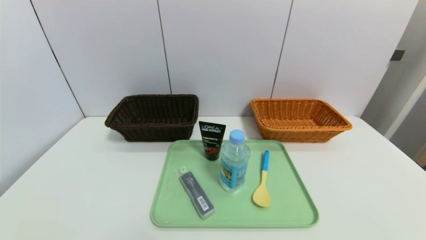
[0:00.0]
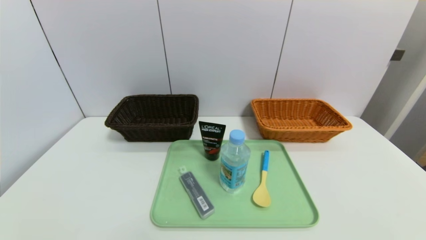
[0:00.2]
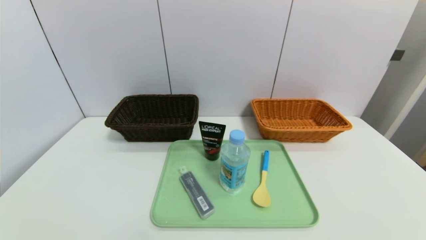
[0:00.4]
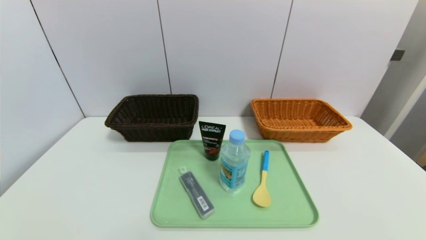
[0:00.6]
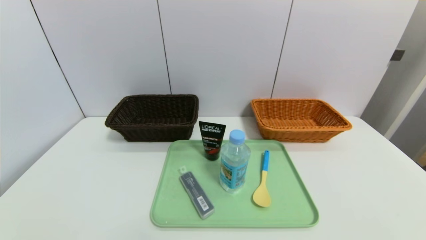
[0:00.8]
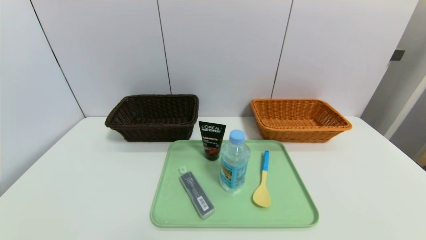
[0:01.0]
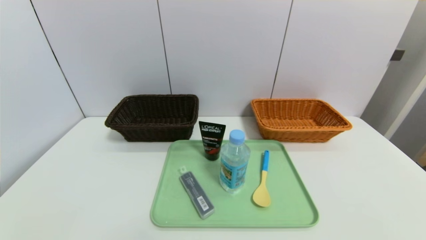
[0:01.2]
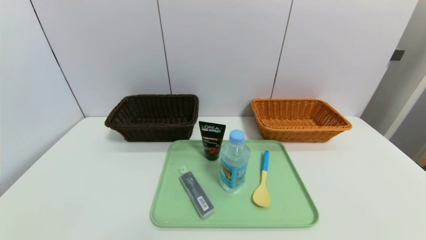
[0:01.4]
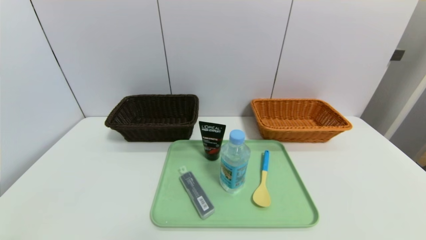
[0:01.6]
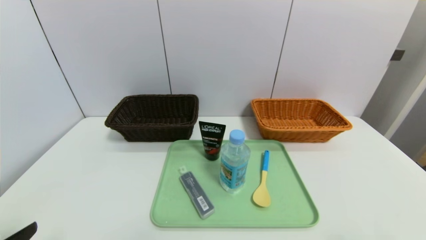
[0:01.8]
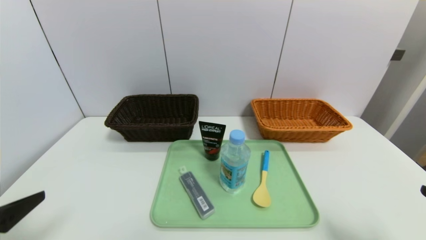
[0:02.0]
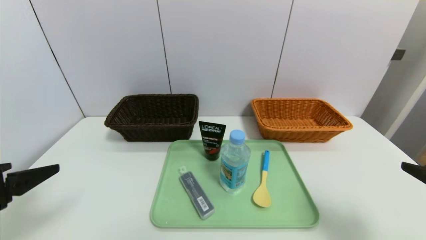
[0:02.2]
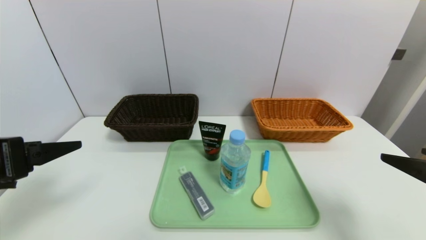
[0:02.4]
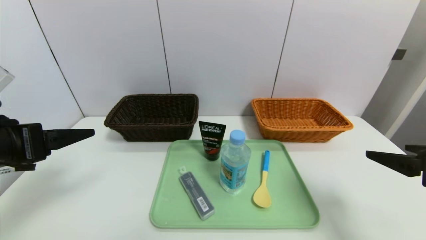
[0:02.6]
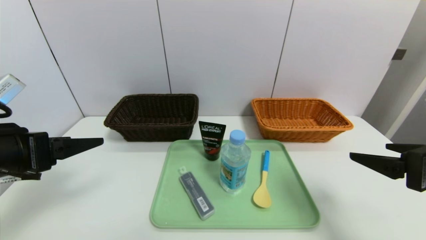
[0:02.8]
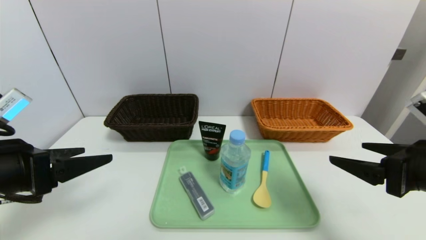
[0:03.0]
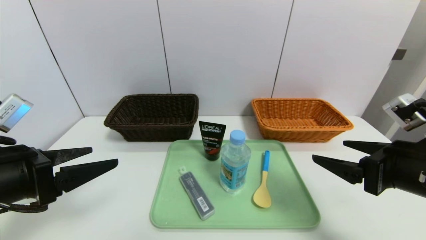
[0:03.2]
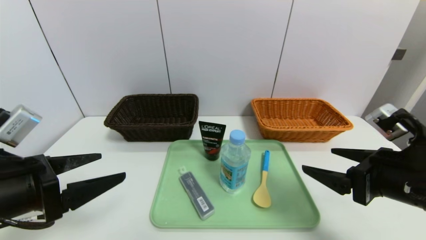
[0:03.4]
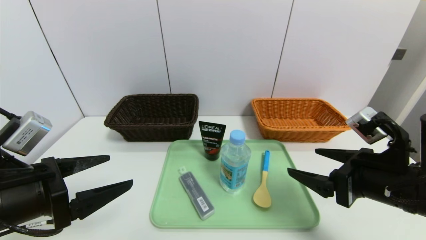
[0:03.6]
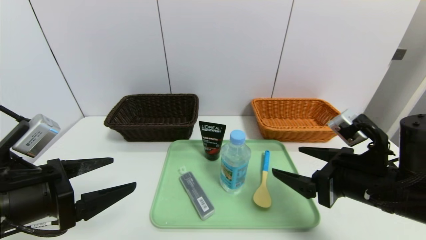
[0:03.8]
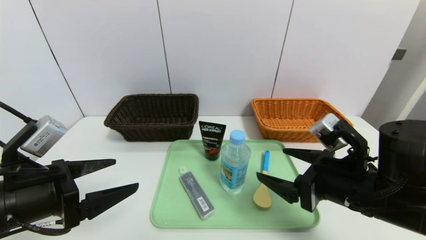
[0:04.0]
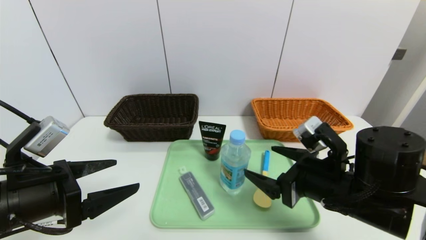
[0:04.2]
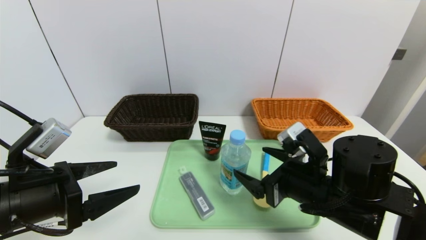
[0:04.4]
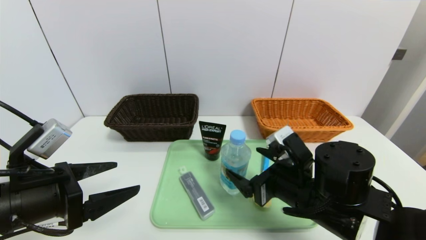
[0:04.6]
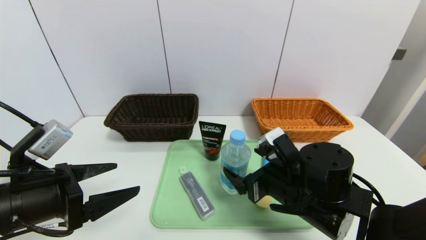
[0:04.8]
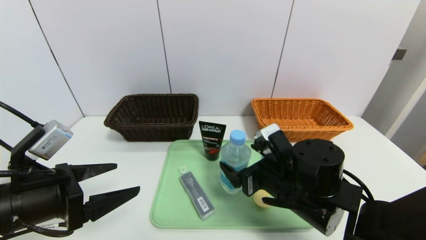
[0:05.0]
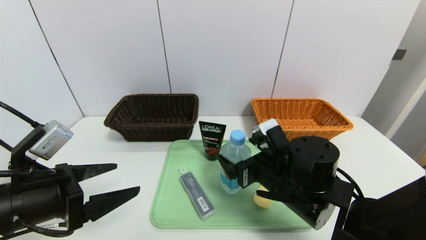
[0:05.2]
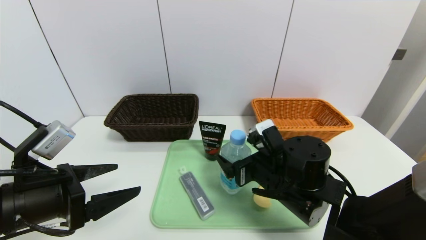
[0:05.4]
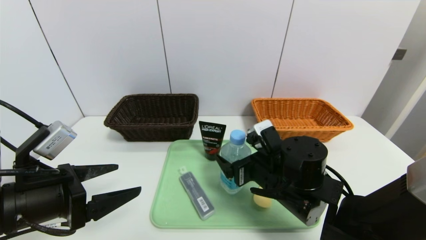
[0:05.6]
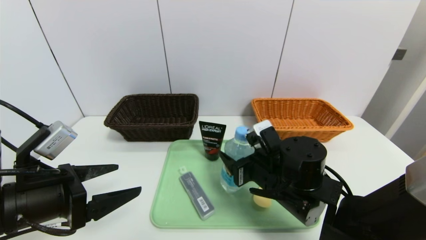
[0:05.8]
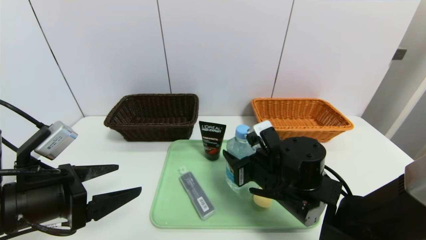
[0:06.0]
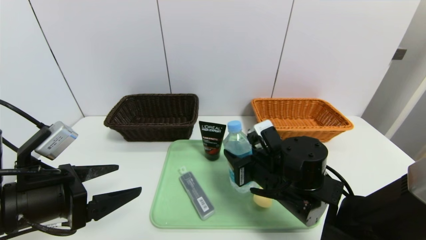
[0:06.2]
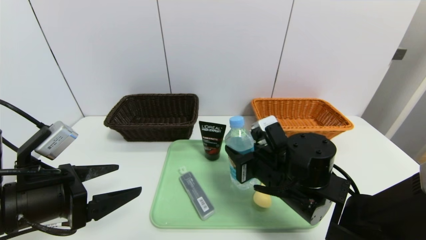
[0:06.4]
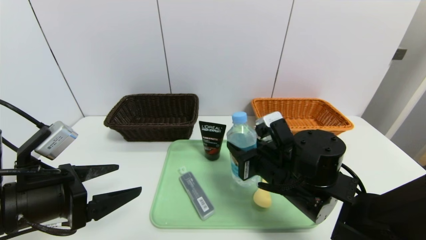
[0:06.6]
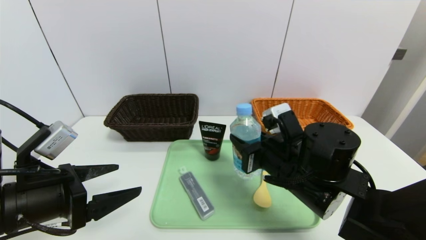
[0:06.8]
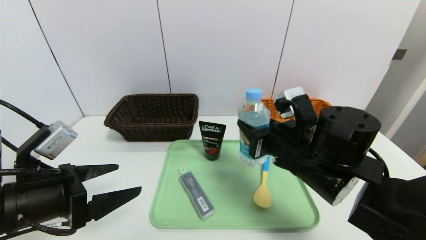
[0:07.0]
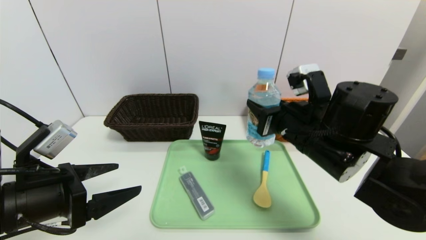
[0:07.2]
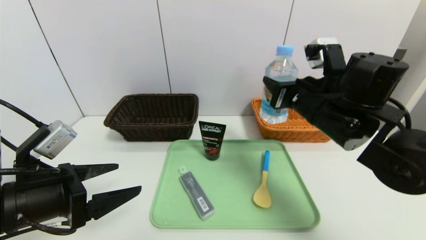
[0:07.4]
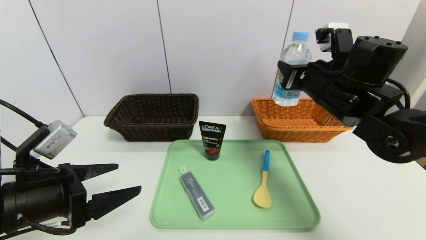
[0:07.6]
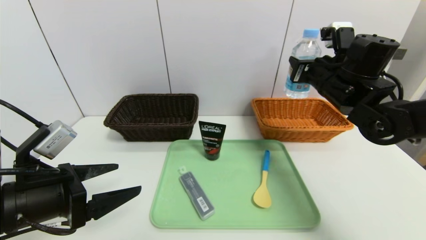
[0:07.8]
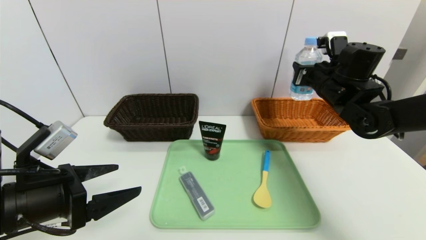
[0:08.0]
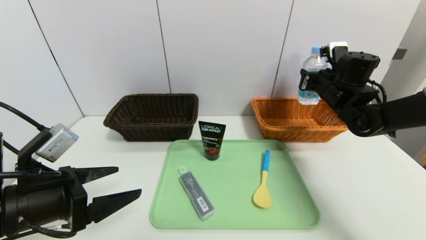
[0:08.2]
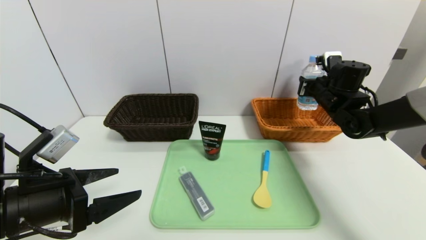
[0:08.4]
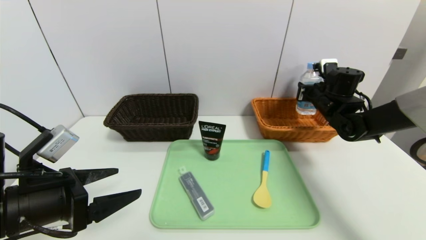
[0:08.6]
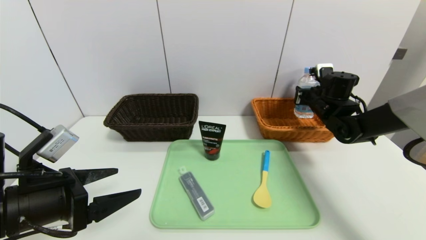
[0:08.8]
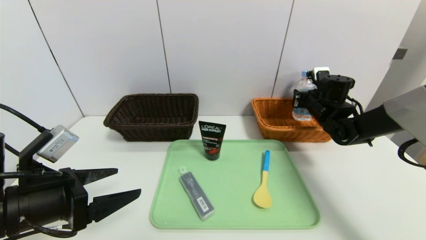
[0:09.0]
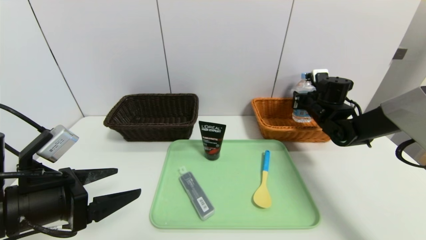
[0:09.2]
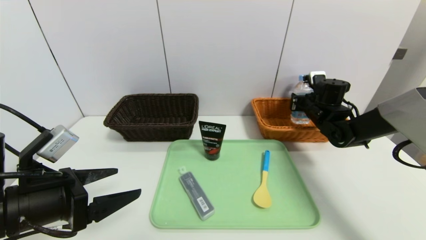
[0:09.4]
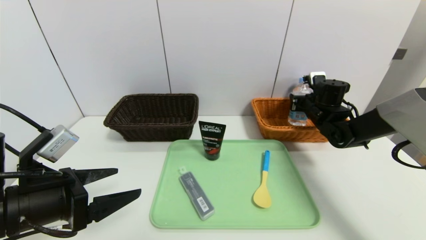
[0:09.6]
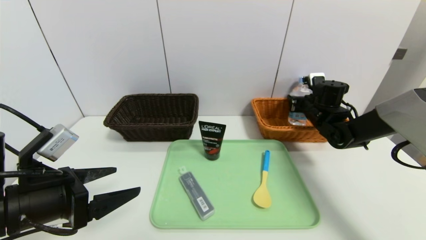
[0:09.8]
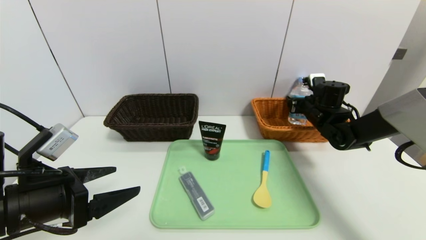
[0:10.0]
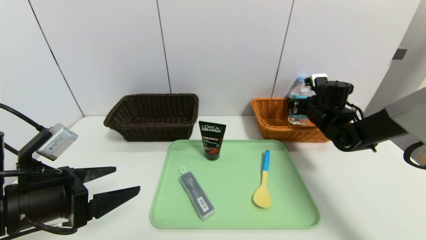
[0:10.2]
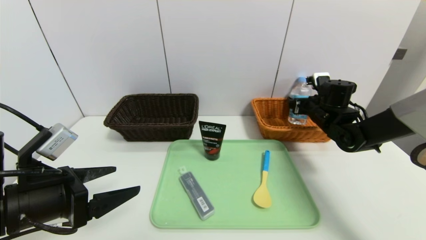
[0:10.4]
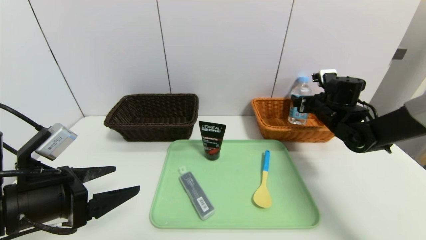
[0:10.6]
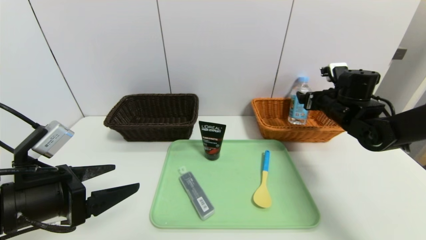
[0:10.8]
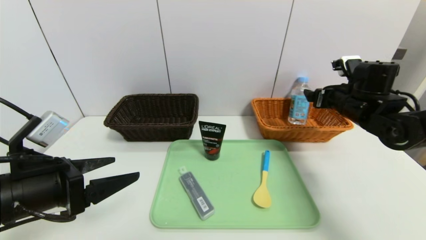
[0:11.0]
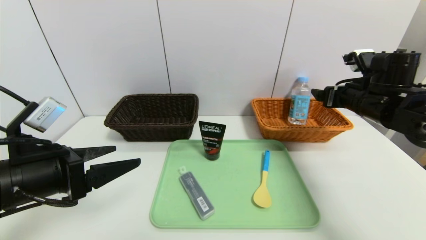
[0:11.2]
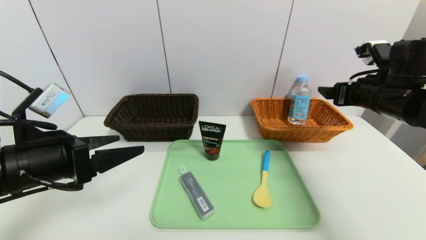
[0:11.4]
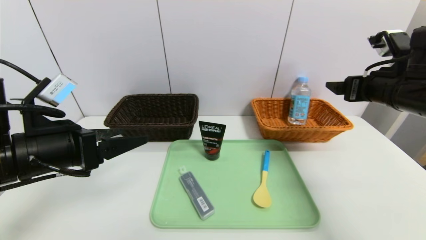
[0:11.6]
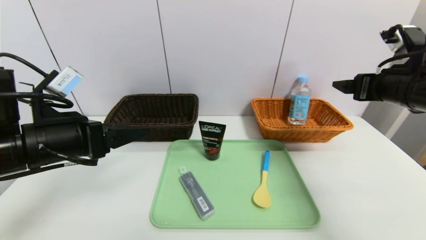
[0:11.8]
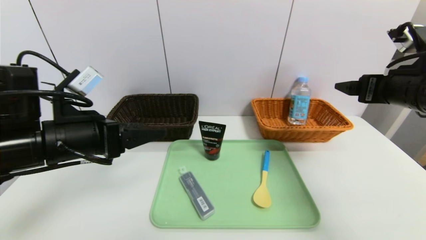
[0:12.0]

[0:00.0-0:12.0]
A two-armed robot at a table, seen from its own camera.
Task of the whole recording: place the food in the right basket with the right gripper, and place the non food items in the left basket with the left gripper.
Step, 0:00.0 to 0:10.0: Grasp the soda water and put it in the right basket.
0:01.6 to 0:03.0: The grippers both shift forward and upward by roughly 15 cm.
0:03.0 to 0:04.4: The right gripper moves to the left and downward, roughly 15 cm.
0:04.4 to 0:06.0: The right gripper ends up approximately 5 cm from where it was, and closes its fingers.
0:06.0 to 0:07.6: The right gripper moves upward, to the right and forward, some 20 cm.
0:07.6 to 0:09.0: The right gripper heads forward, downward and to the right, covering about 20 cm.
0:09.0 to 0:10.4: The right gripper opens up.
0:10.4 to 0:12.0: The right gripper moves backward and upward, about 20 cm, while the left gripper moves forward and upward, about 10 cm.

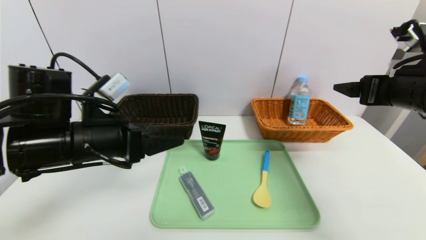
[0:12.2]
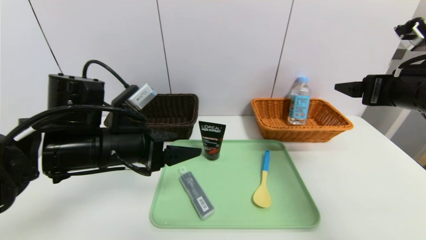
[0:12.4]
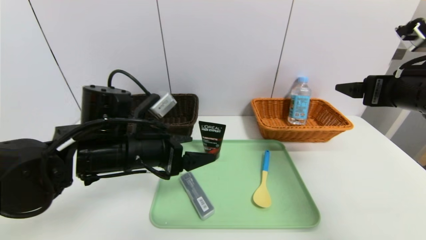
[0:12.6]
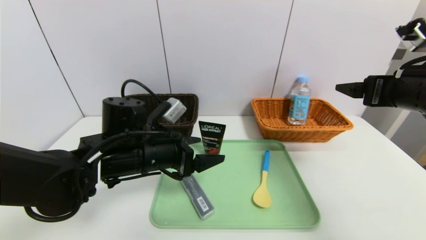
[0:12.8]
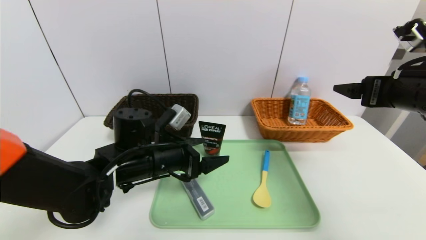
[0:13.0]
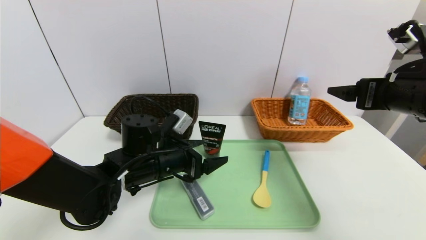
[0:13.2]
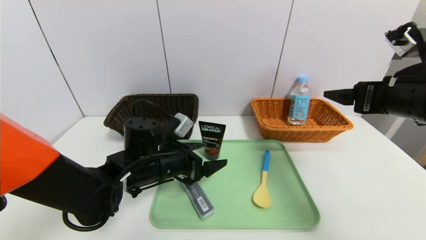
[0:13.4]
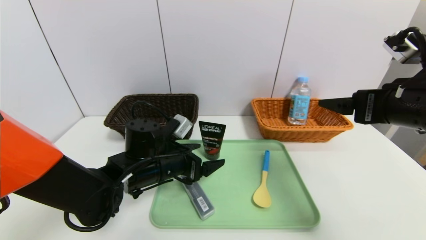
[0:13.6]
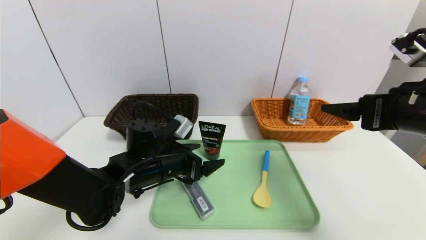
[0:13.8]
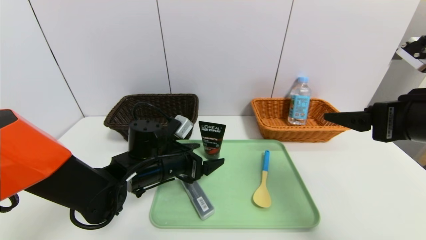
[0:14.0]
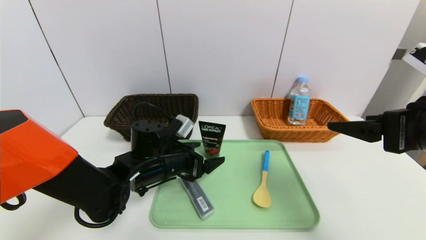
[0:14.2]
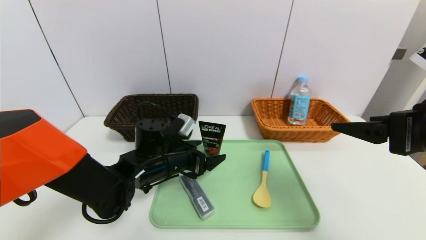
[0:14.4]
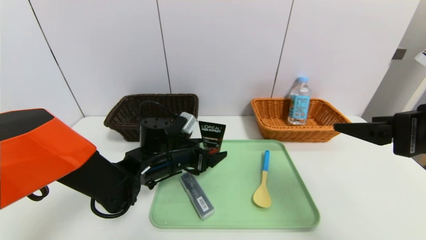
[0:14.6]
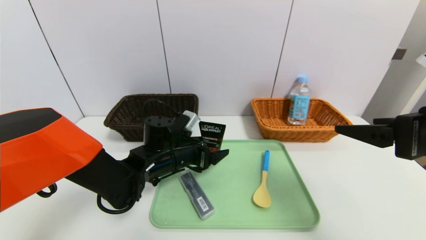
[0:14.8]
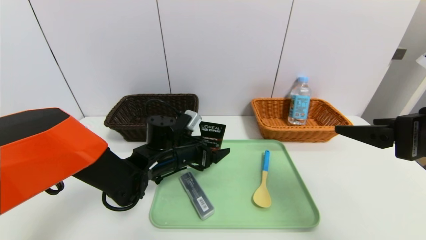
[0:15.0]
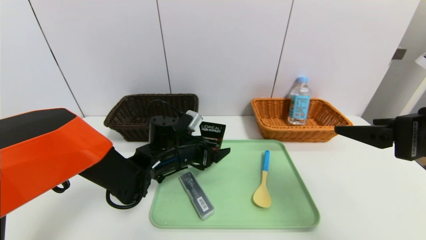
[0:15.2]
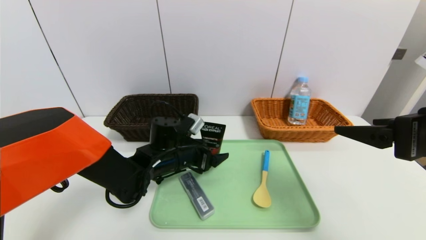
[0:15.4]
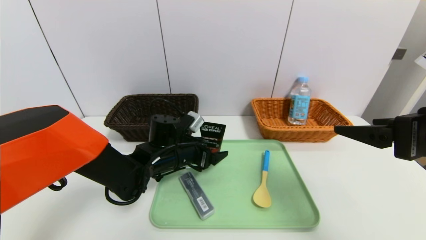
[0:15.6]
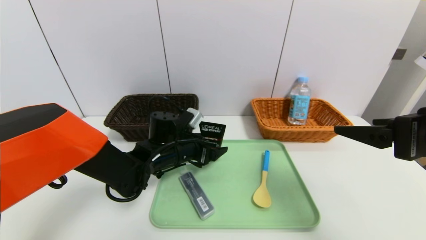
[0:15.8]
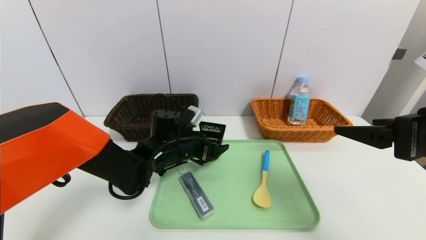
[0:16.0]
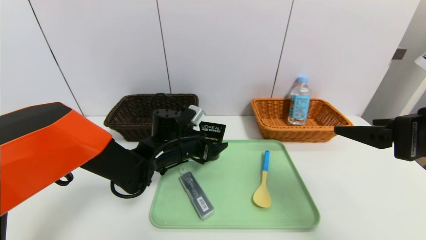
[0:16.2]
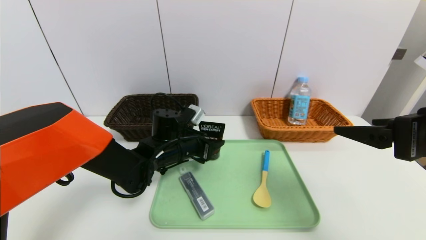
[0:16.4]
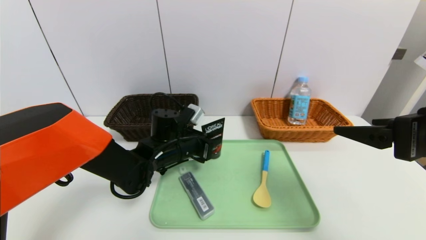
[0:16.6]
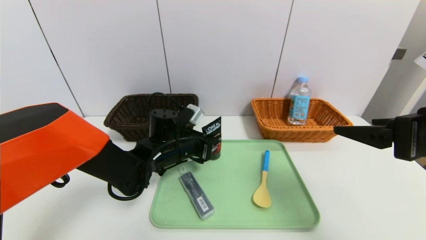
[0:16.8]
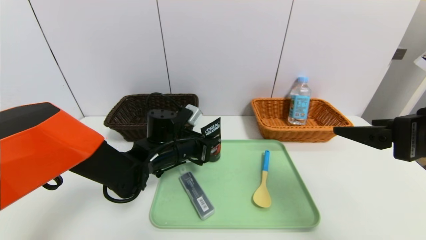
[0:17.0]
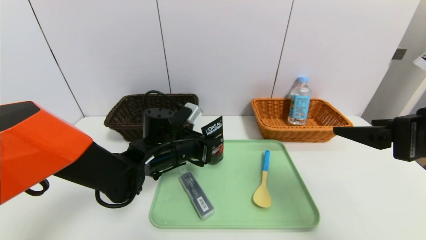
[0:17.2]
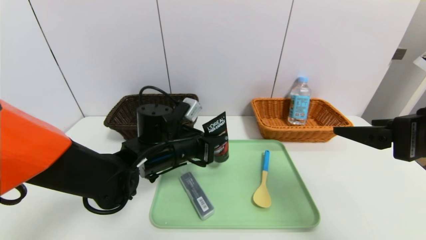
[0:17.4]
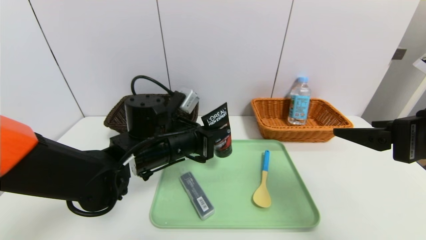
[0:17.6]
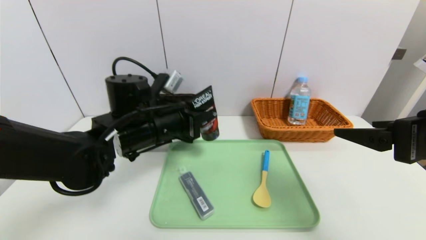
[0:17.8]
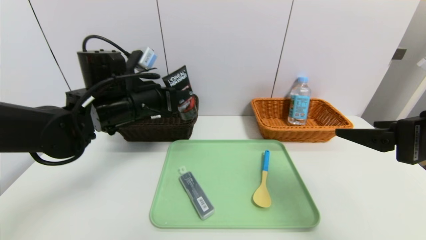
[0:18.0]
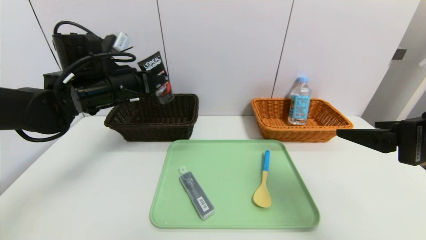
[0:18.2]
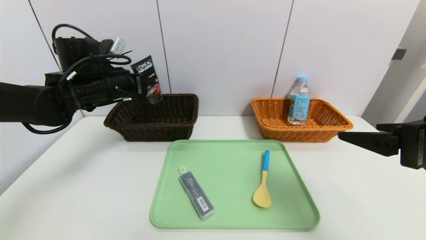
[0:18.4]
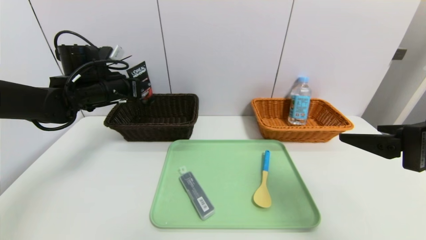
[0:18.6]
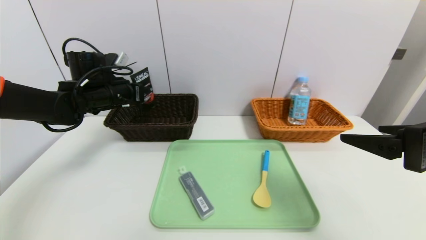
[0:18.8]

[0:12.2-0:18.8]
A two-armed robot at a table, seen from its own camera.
Task of the whole recording: place the food in the right basket with the right gripper, and place the non food items in the left basket with the left gripper.
0:12.2 to 0:13.8: The right gripper shifts by about 5 cm, while the left gripper is displaced downward, to the right and forward by roughly 15 cm.
0:13.8 to 0:15.4: The left gripper ends up approximately 5 cm from where it was.
0:15.4 to 0:17.2: The left gripper closes up.
0:17.2 to 0:18.8: The left gripper heads to the left, forward and upward, covering some 20 cm.
